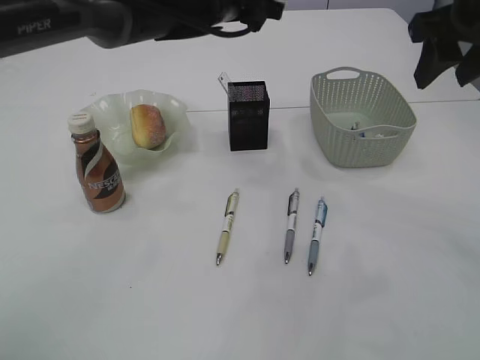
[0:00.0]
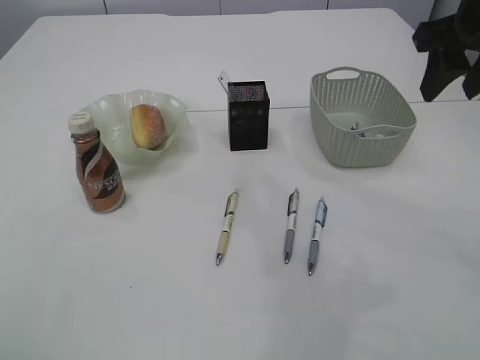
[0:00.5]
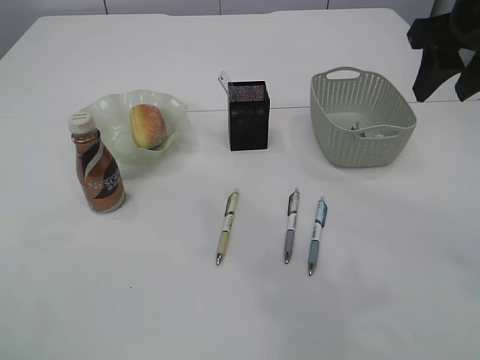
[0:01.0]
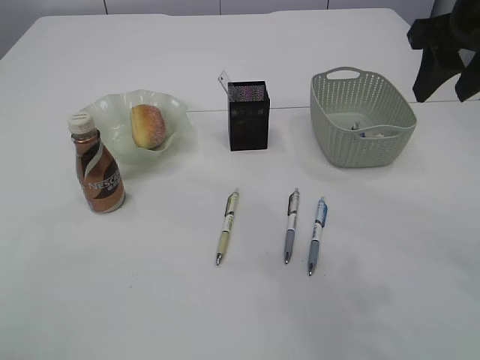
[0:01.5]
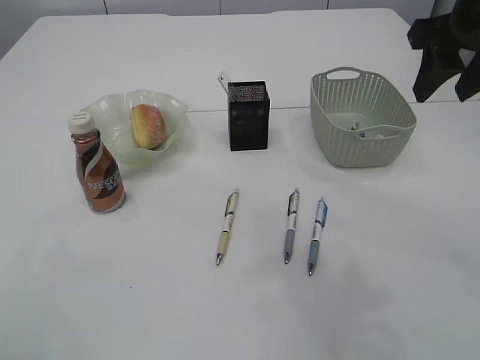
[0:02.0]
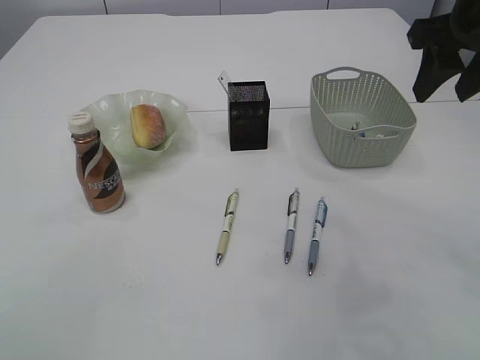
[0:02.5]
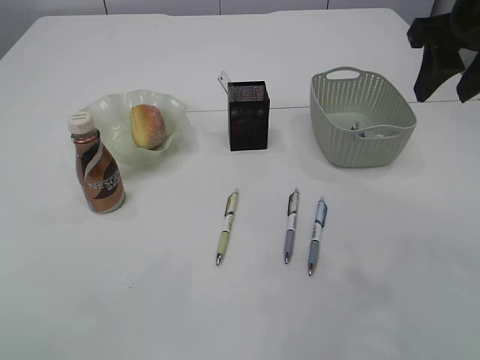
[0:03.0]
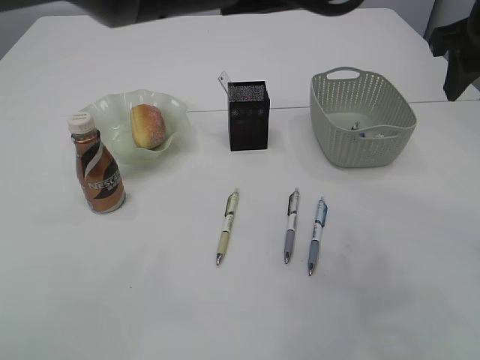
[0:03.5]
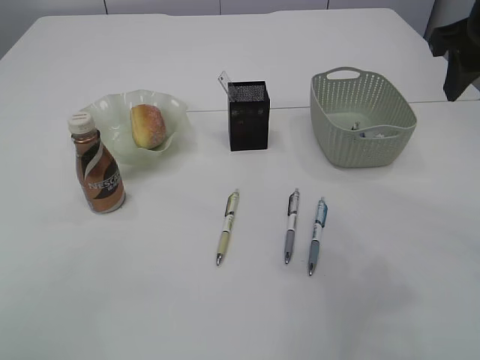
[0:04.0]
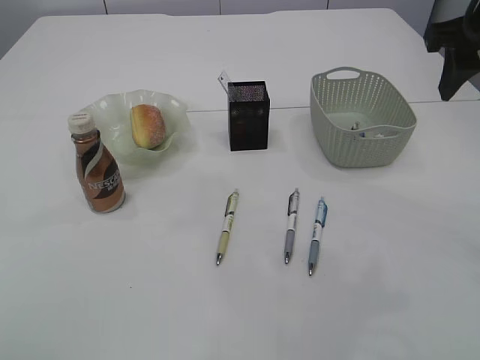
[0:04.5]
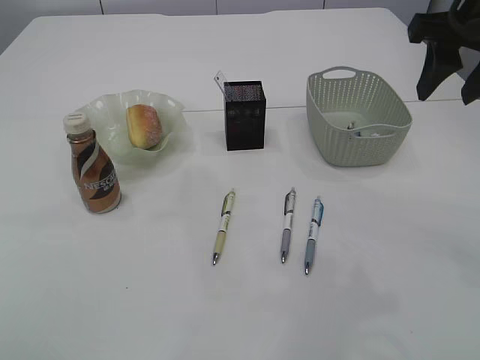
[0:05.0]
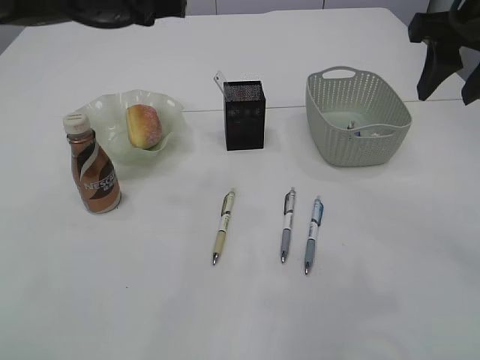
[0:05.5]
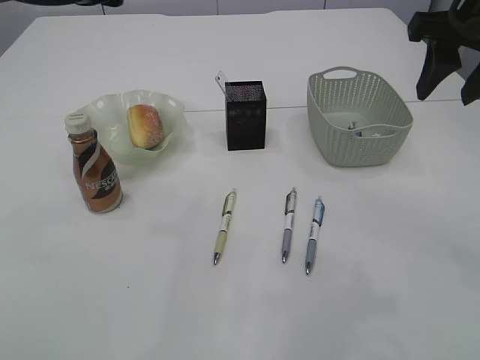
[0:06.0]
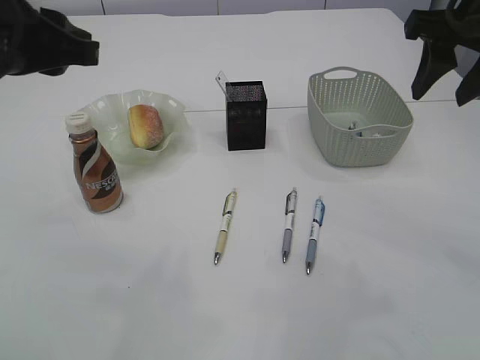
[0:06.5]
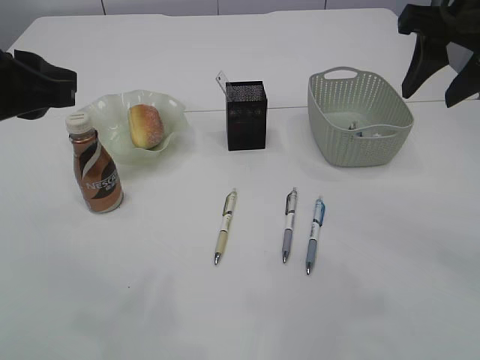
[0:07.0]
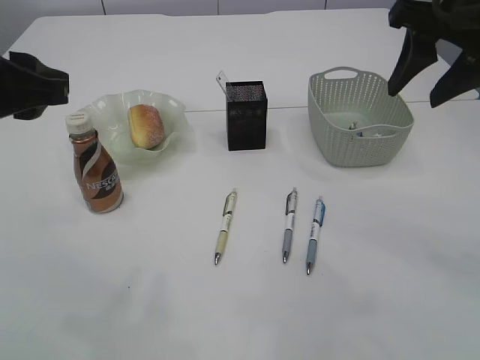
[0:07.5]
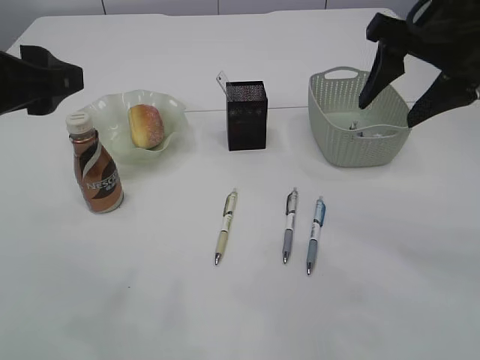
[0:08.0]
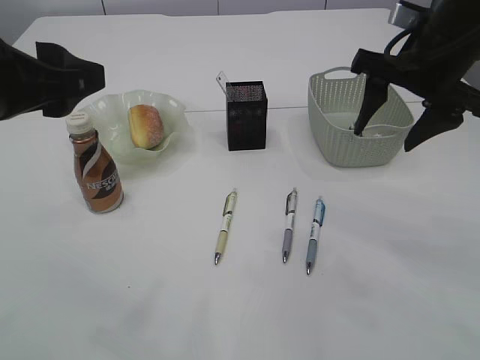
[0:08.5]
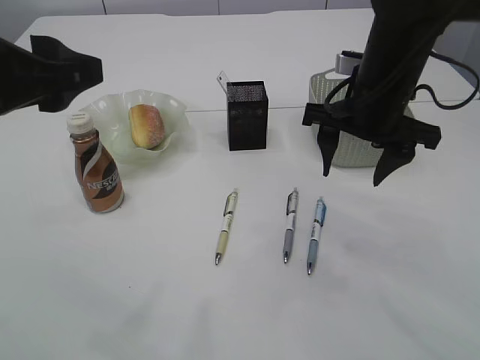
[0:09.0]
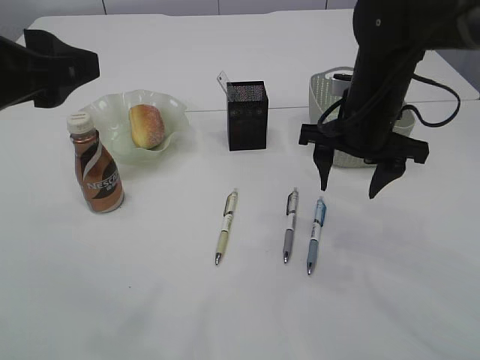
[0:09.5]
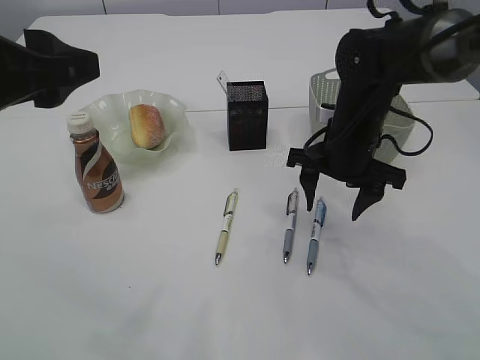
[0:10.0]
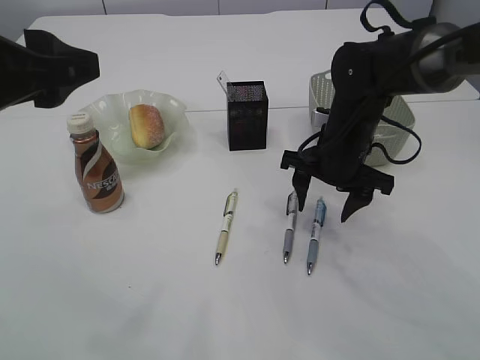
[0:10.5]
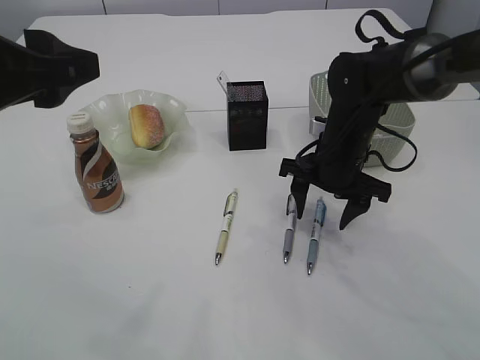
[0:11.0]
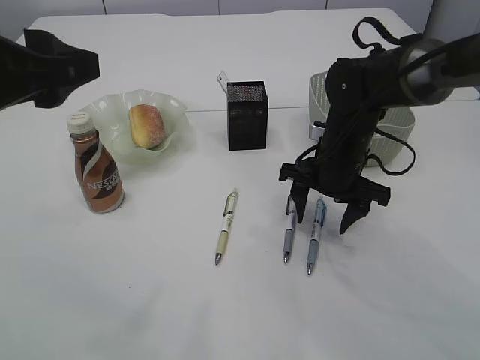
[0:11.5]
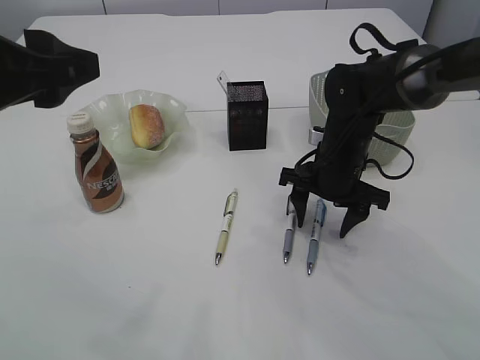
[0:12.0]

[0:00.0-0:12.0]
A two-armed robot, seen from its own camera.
0:00.0 to 0:02.0: The left gripper heads backward and upward, covering some 15 cm, and closes up.
0:04.0 to 0:06.0: The left gripper travels to the left by roughly 15 cm.
0:06.0 to 0:08.0: The left gripper moves backward and to the left, approximately 15 cm, and opens.
0:08.0 to 0:10.0: The right gripper moves downward and to the left, roughly 15 cm.
0:10.0 to 0:12.0: The grippers make only small movements.

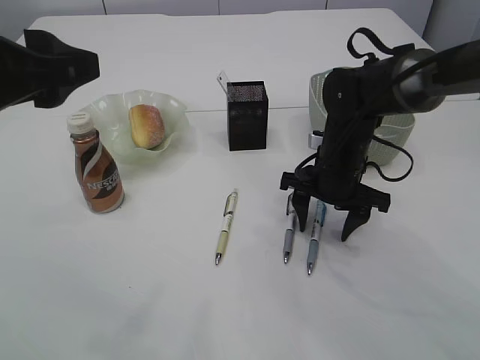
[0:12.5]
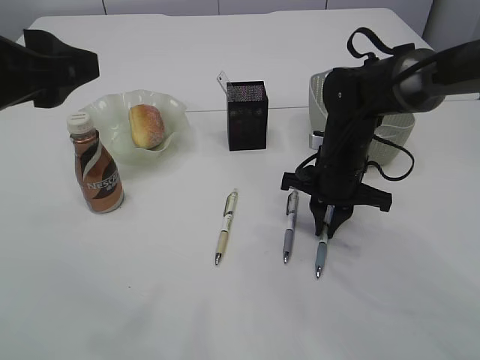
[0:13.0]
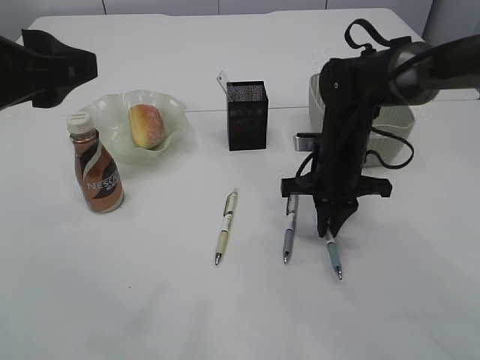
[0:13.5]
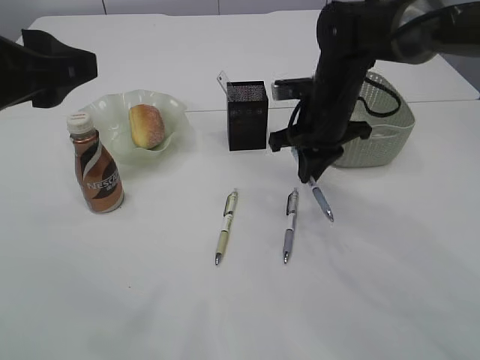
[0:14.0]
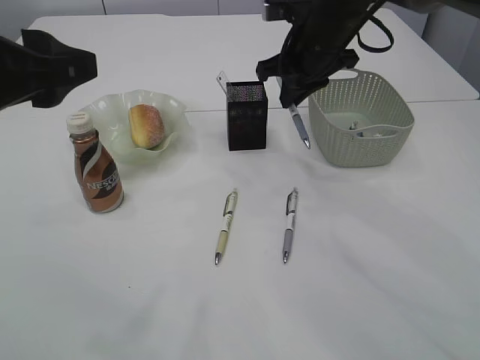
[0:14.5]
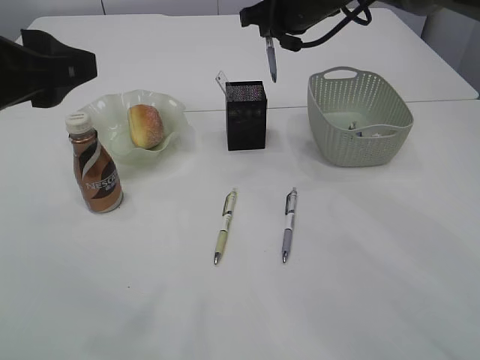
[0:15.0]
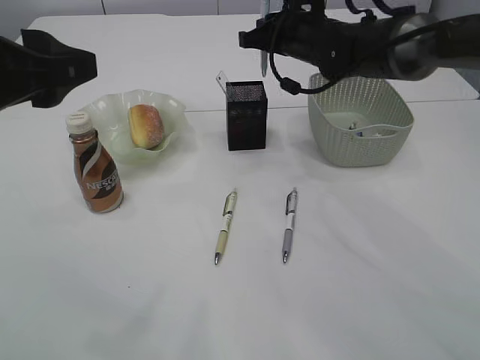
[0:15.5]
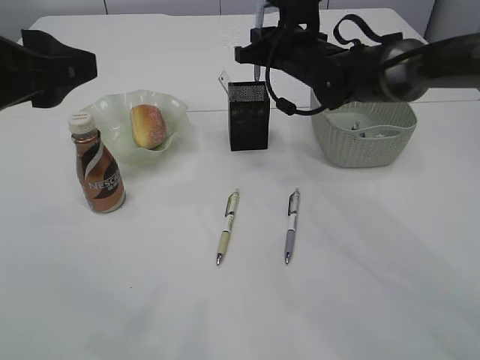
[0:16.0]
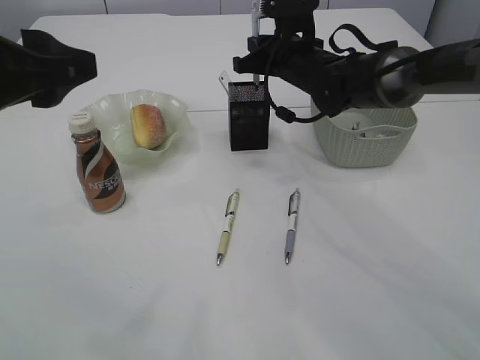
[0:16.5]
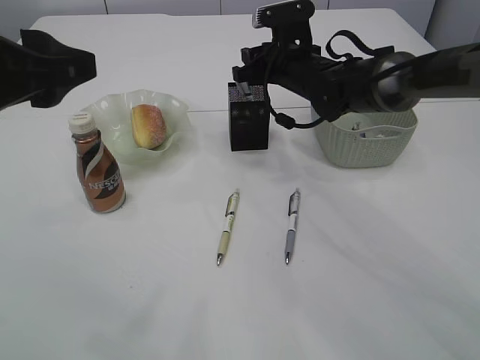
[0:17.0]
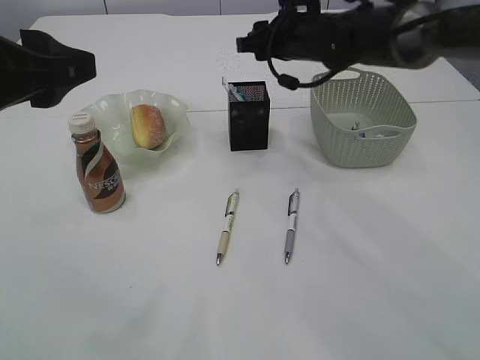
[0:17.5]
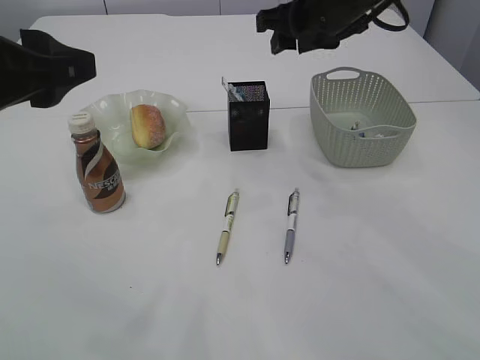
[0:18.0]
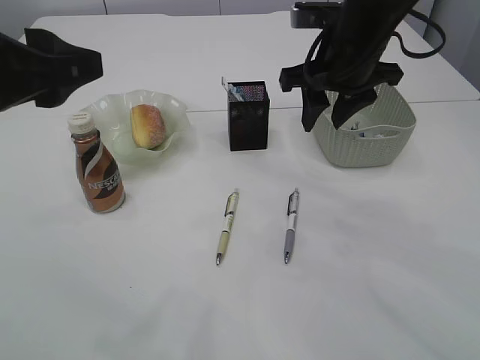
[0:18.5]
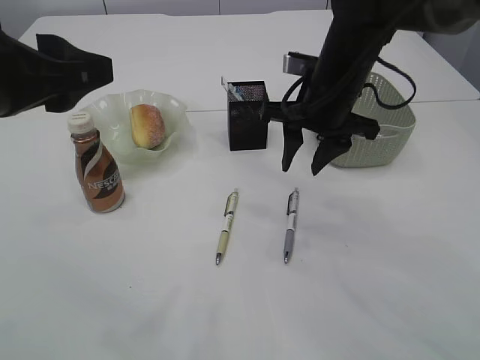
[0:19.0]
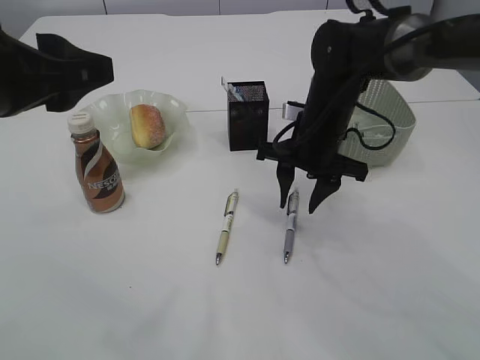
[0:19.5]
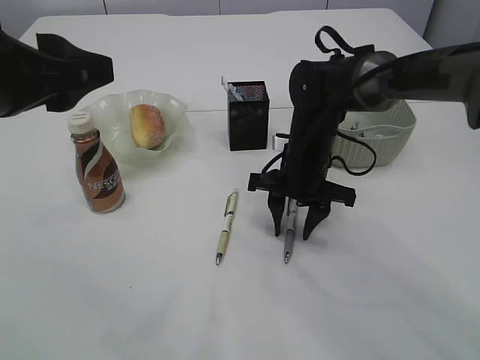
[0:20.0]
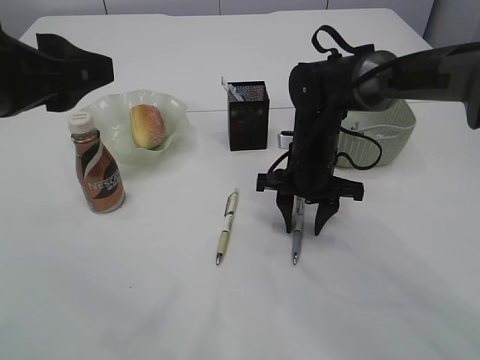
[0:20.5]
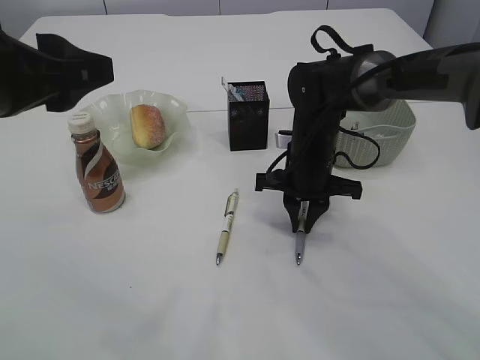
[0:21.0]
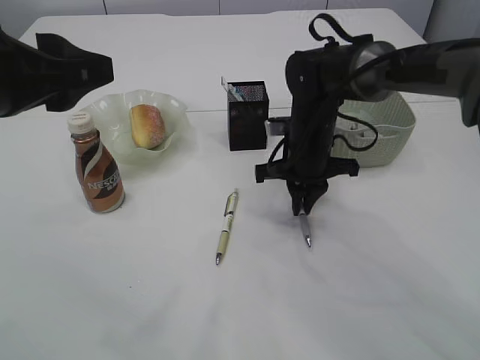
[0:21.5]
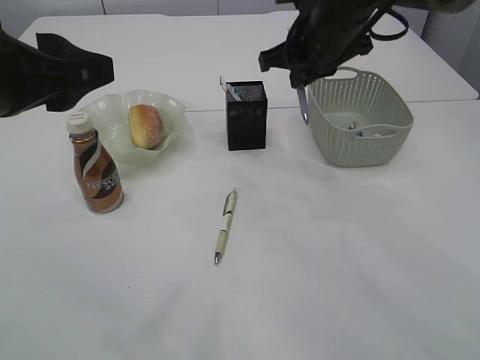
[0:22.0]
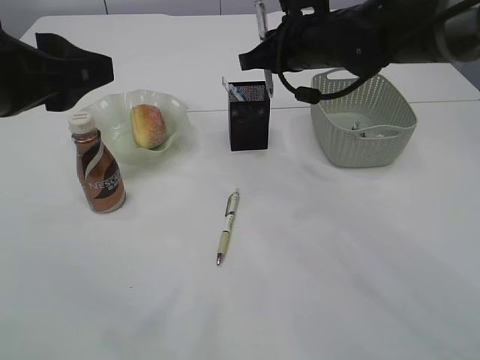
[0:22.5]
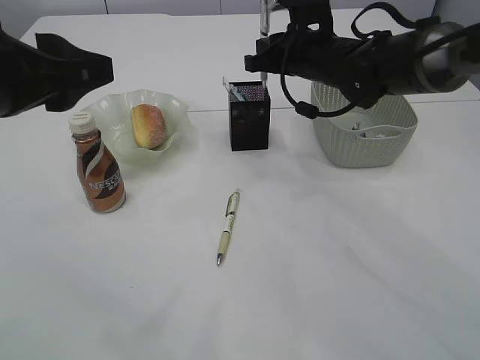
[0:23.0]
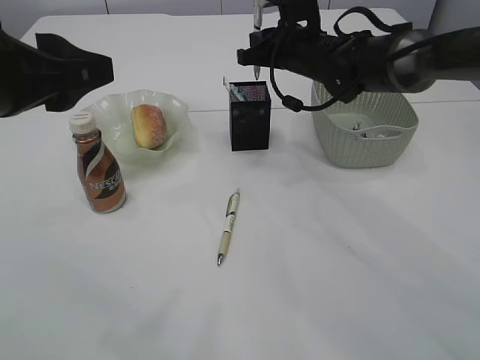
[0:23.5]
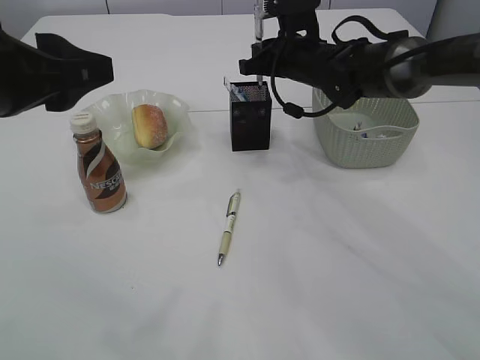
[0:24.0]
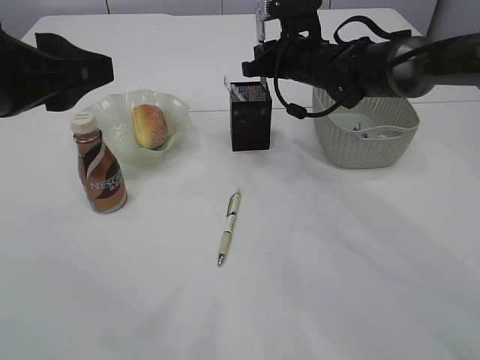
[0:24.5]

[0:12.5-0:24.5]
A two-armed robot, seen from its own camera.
Step, 0:14.5 to 0:17.0: Place the pen into the pen holder.
Step, 0:17.5 to 0:21.5: Pick up the pen with right arm.
0:12.5 to 0:14.5: The right gripper goes some 15 cm upward and forward, and closes its fingers.
0:14.5 to 0:16.5: The right gripper shifts approximately 5 cm downward.
0:16.5 to 0:18.5: The right gripper moves backward and upward, roughly 15 cm, and opens.
0:18.5 to 0:20.5: The right gripper is displaced downward by about 15 cm.
0:20.5 to 0:22.5: The right gripper moves upward, approximately 15 cm, and closes.
0:22.5 to 0:24.5: The right gripper goes about 10 cm forward and downward.

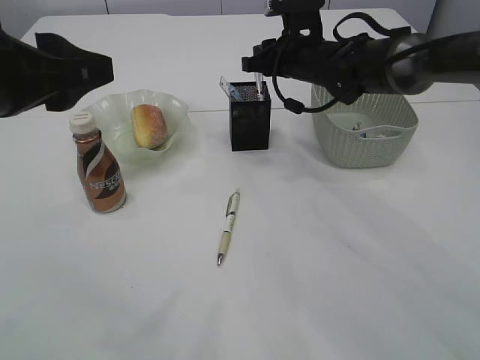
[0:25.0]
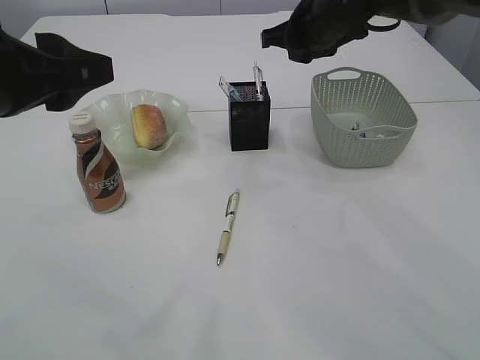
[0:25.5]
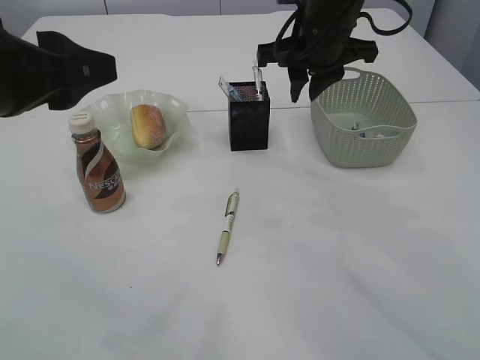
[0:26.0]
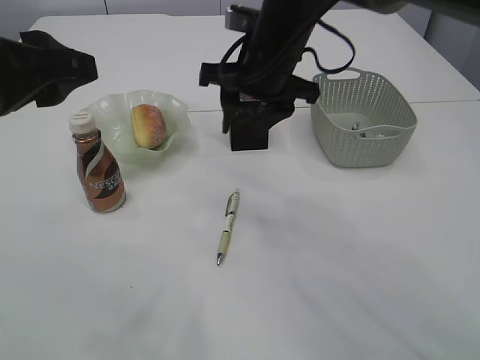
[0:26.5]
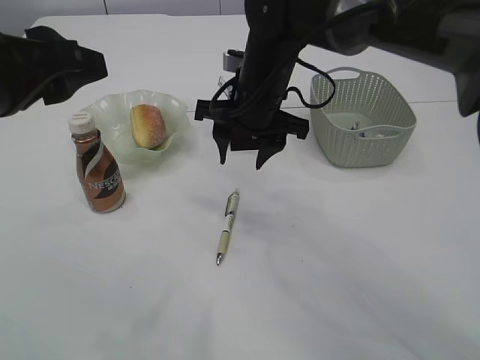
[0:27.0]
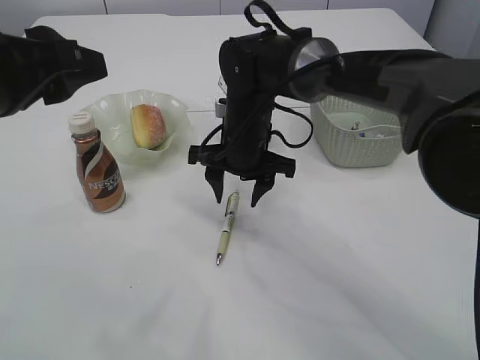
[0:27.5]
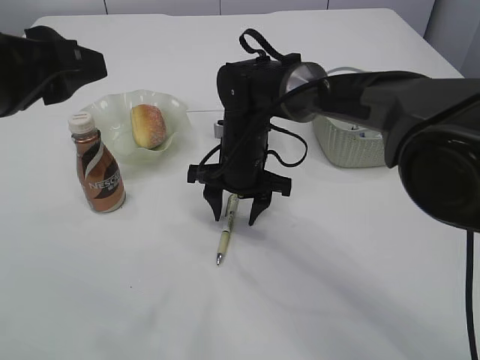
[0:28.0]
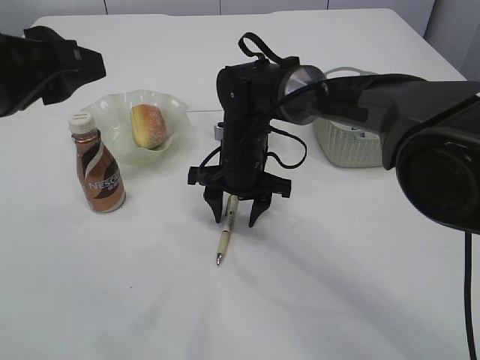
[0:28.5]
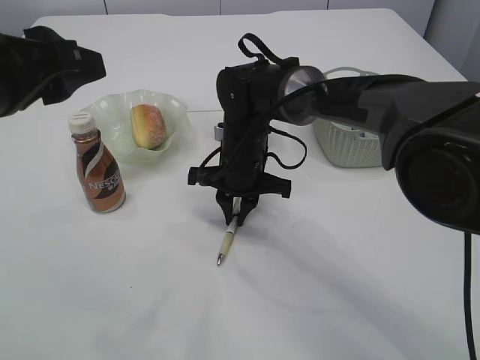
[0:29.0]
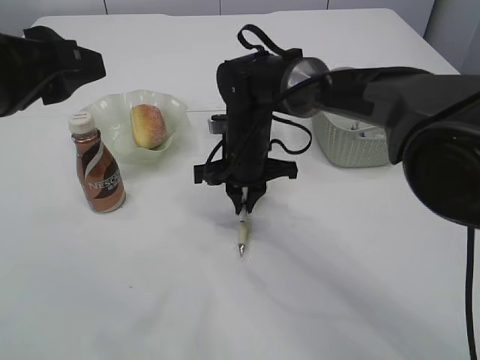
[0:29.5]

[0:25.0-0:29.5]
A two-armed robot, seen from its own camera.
0:25.0 to 0:27.0: The right gripper heads backward and to the left, covering approximately 10 cm, and opens its fingers.
0:27.0 to 0:29.5: The right gripper is displaced downward by some 10 cm, and closes up.
